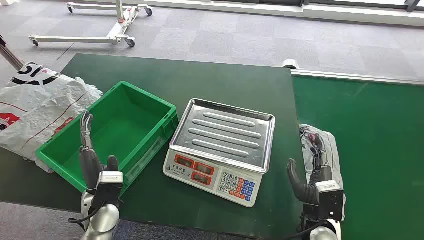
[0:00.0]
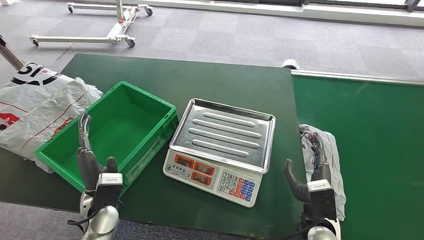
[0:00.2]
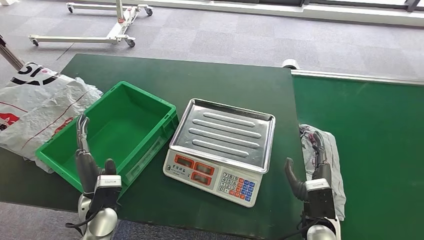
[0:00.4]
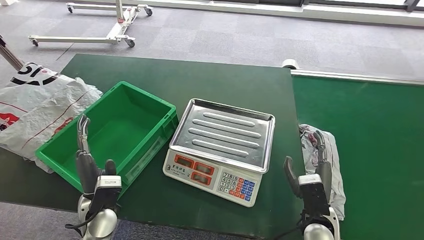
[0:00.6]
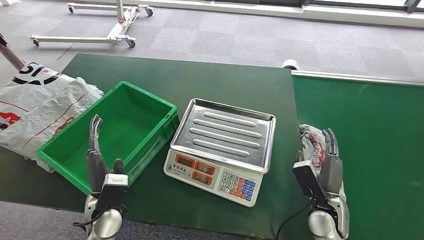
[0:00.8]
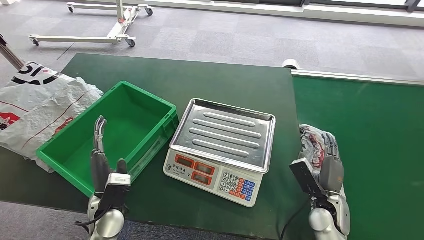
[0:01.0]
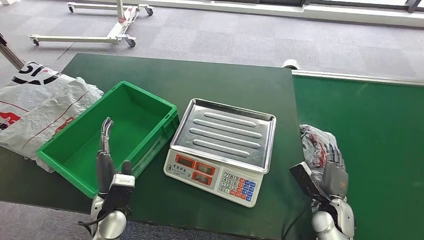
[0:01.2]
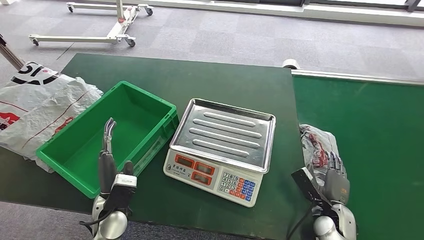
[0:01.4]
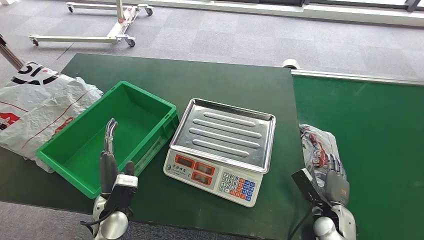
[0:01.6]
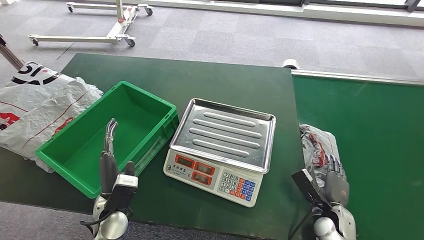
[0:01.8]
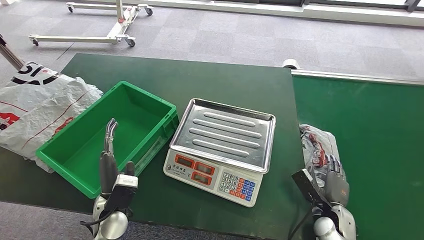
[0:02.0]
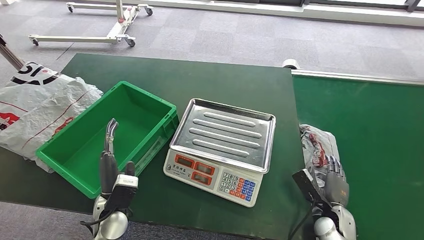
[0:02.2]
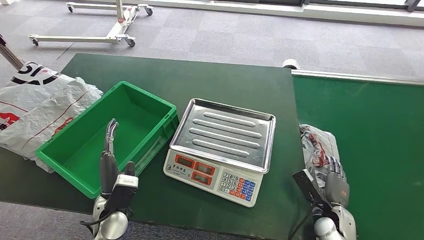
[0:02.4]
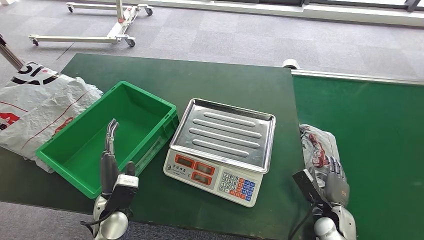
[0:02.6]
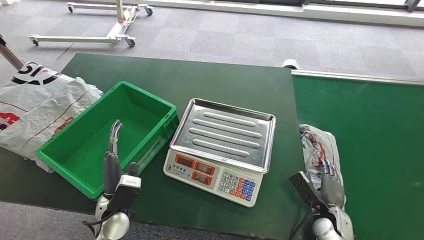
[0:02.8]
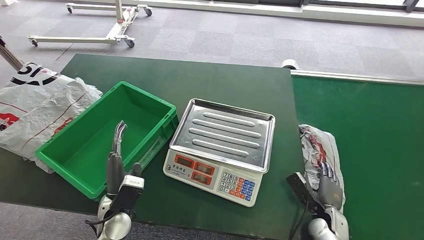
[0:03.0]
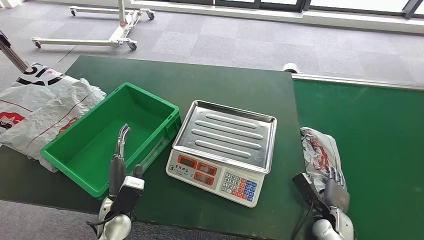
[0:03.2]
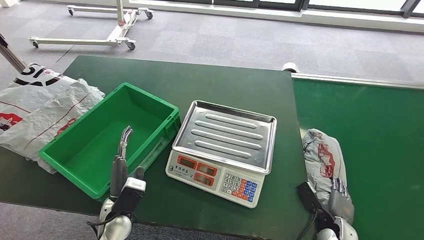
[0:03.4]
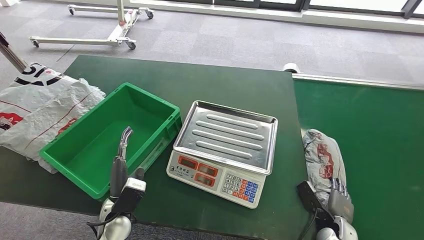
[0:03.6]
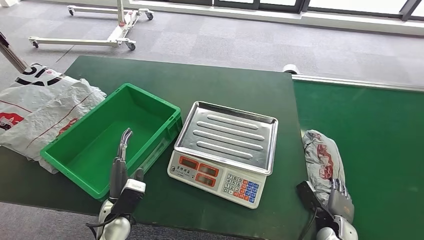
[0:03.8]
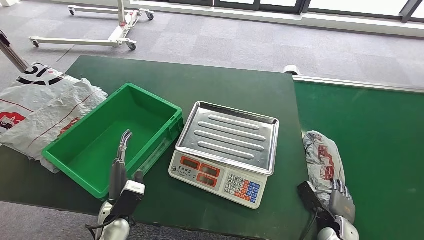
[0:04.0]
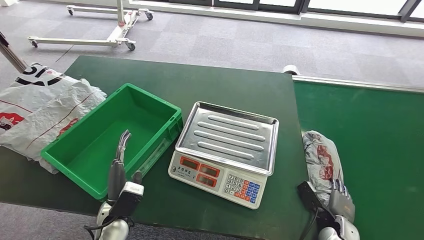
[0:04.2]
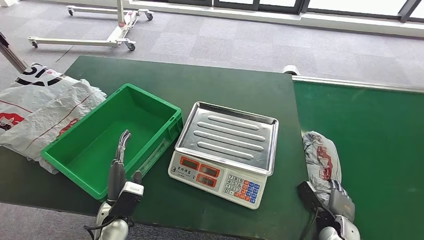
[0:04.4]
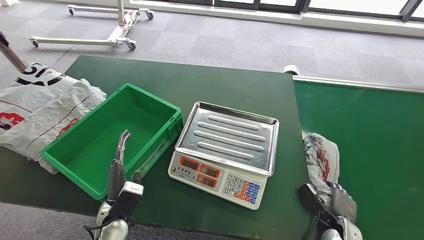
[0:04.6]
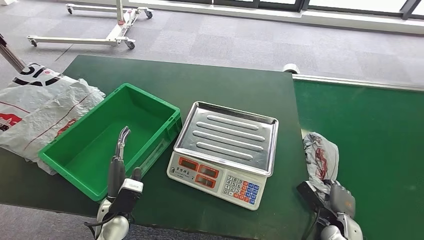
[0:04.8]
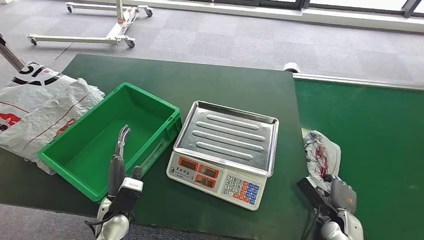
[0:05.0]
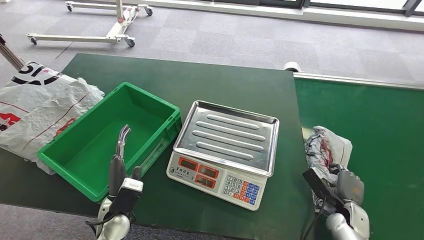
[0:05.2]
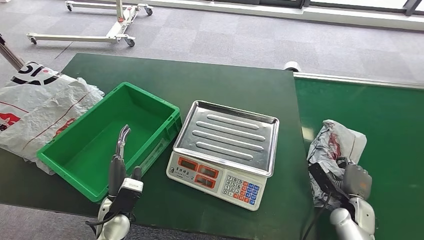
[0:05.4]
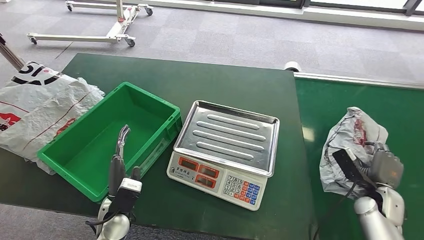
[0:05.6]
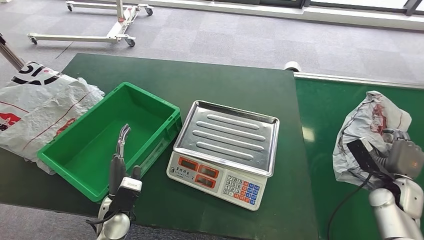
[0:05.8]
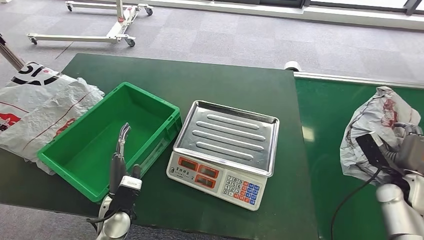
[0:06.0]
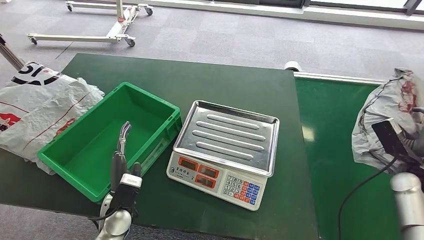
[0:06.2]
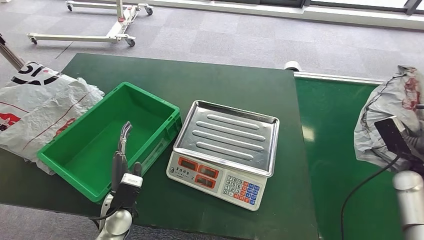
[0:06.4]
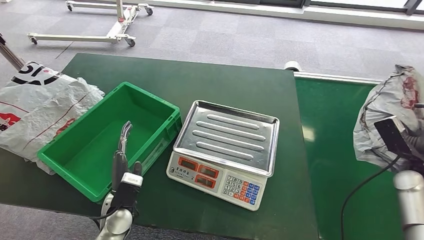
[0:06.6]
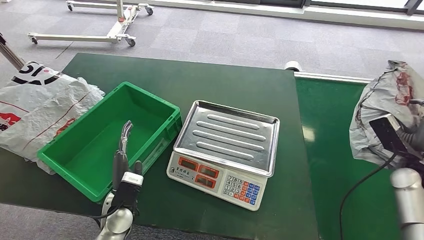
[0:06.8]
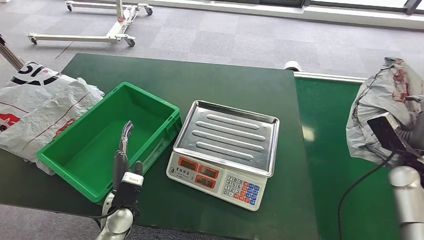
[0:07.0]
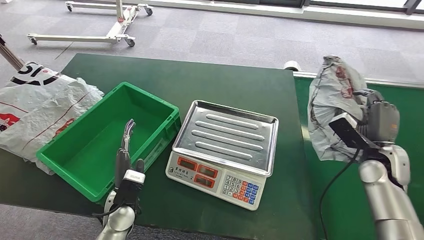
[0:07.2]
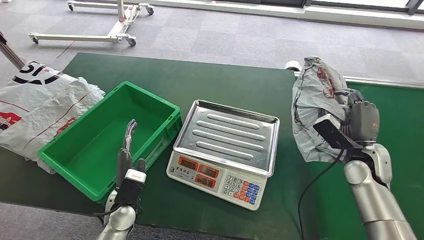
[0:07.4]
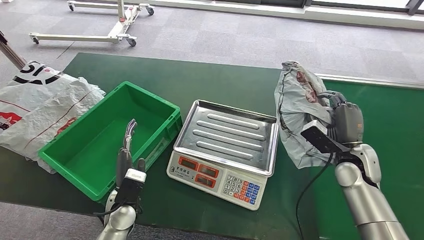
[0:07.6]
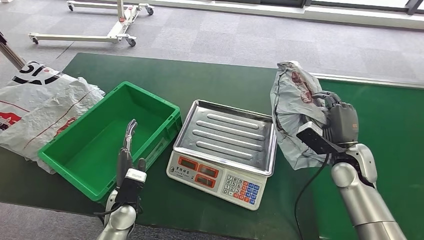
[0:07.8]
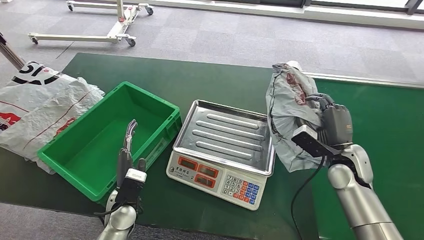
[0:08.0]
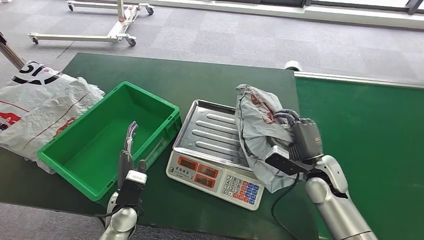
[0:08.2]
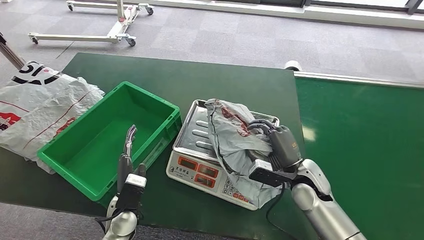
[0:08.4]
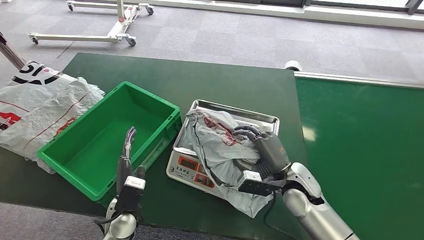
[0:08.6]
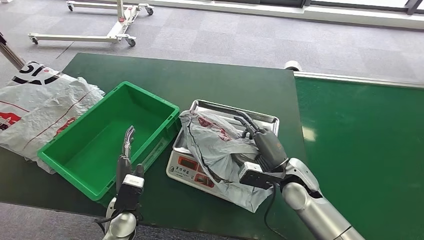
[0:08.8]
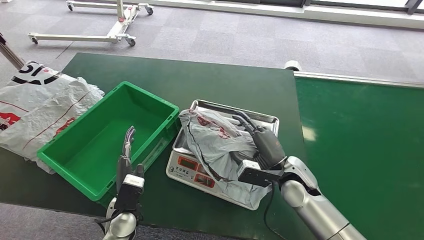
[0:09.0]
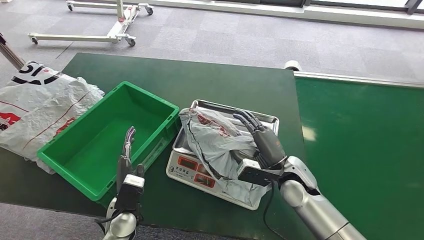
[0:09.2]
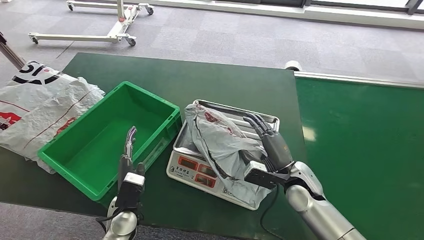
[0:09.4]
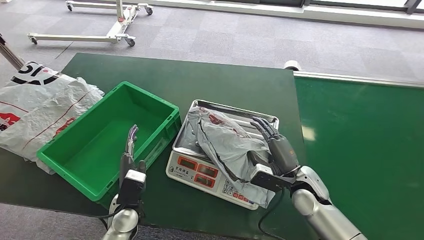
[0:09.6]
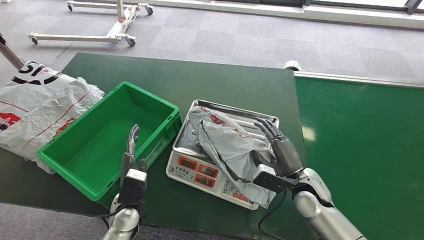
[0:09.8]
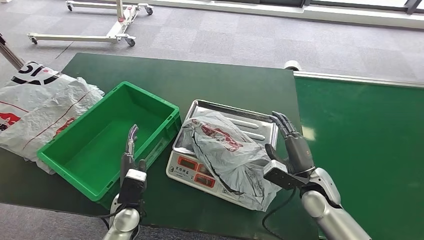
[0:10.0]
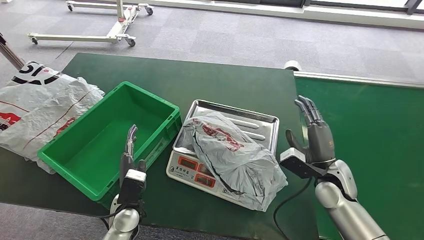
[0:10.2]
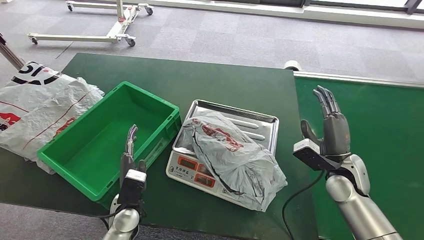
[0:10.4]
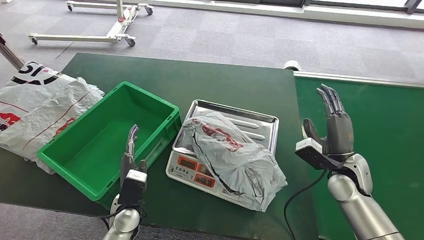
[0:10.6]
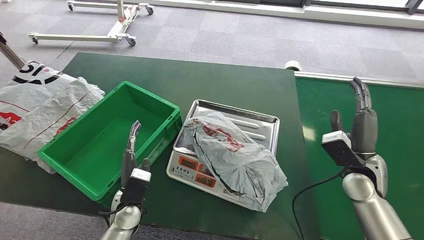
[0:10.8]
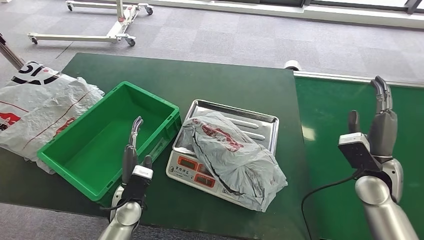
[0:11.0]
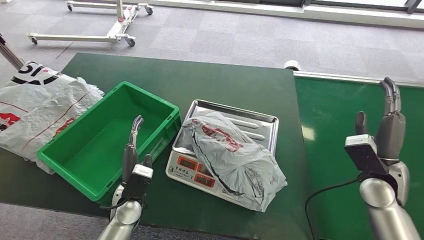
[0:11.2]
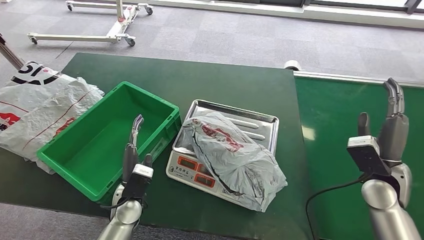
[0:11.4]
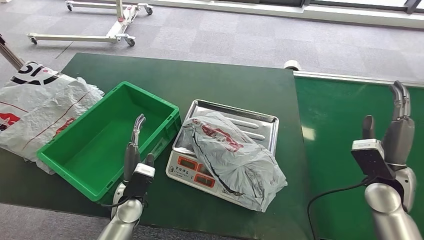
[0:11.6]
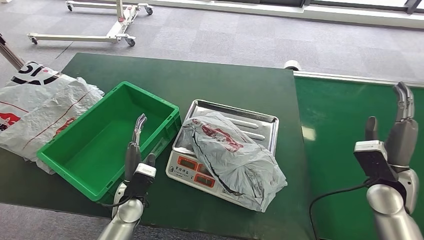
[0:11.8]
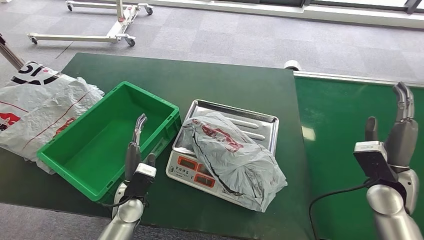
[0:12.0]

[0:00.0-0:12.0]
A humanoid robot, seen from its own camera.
Step, 0:00.0 to 0:07.6: Pick up the package from the conveyor belt.
Step, 0:07.8 to 0:10.6: Place the package onto the inbound machine.
0:01.6 to 0:03.0: The hands stay close to where they were, moving slightly.
0:09.0 to 0:10.4: The right hand travels to the right by approximately 10 cm.
0:10.4 to 0:12.0: The right hand heads to the right, covering about 5 cm.

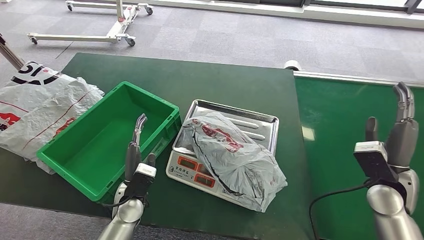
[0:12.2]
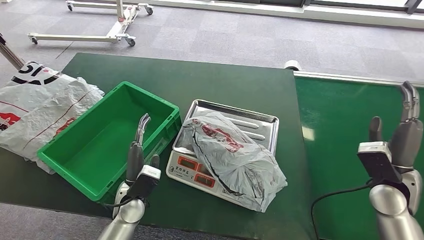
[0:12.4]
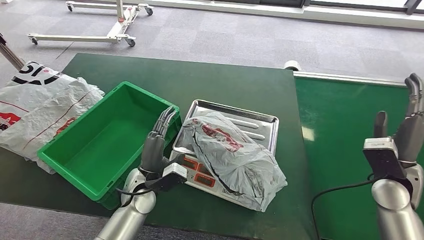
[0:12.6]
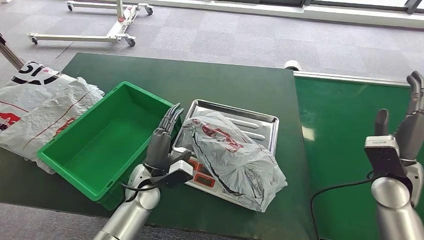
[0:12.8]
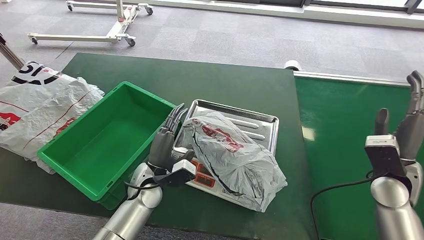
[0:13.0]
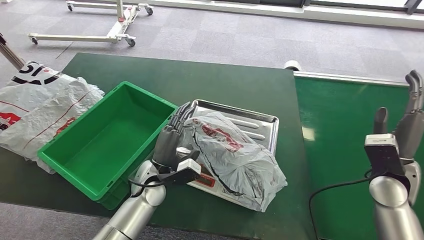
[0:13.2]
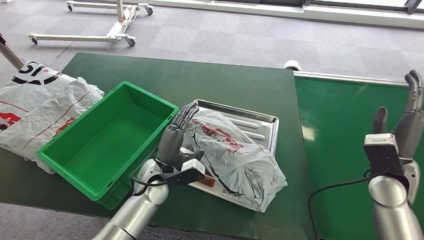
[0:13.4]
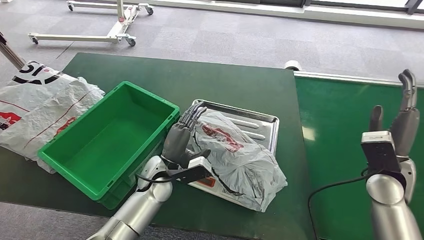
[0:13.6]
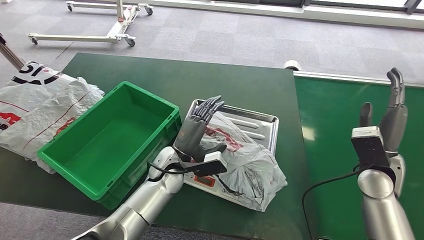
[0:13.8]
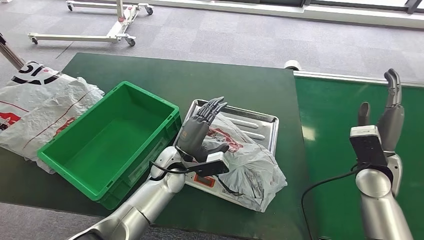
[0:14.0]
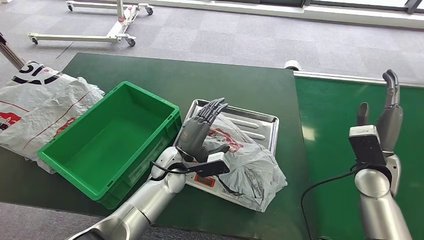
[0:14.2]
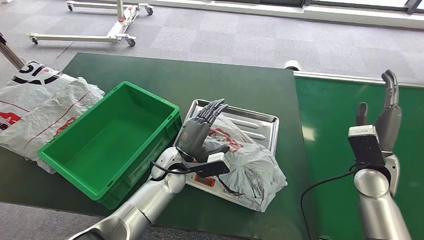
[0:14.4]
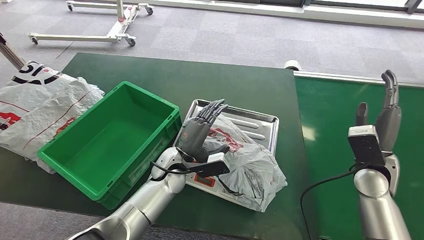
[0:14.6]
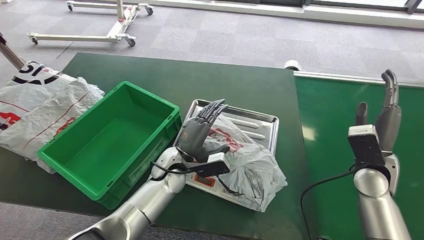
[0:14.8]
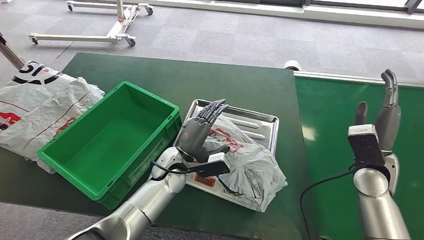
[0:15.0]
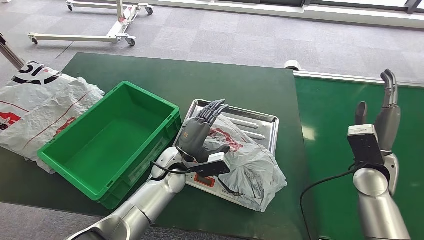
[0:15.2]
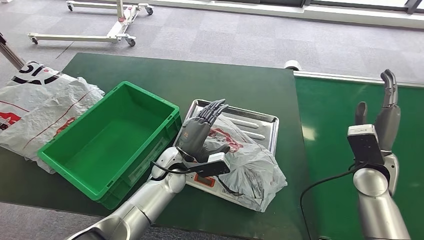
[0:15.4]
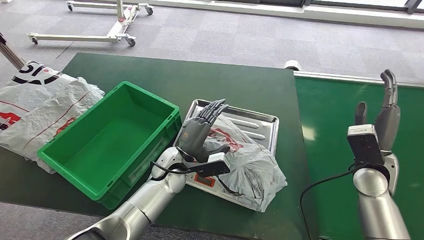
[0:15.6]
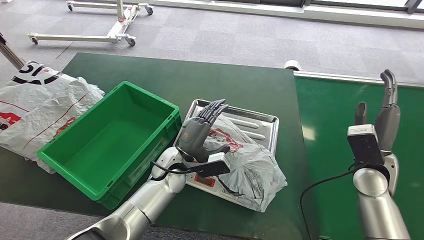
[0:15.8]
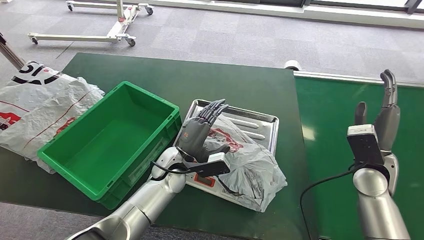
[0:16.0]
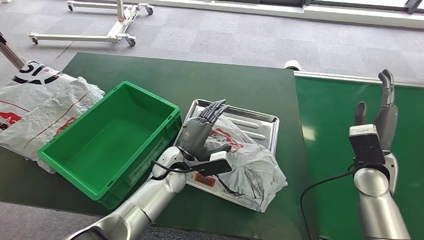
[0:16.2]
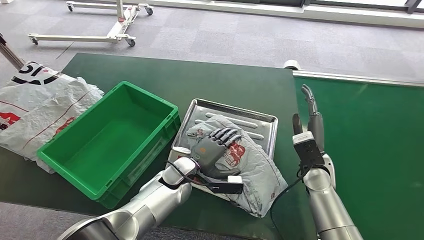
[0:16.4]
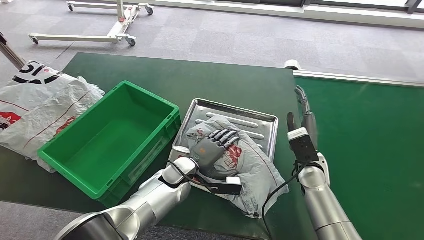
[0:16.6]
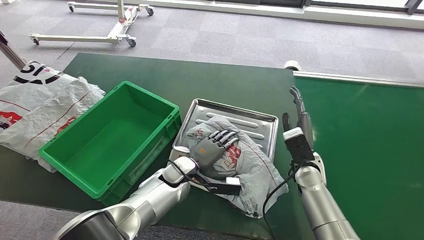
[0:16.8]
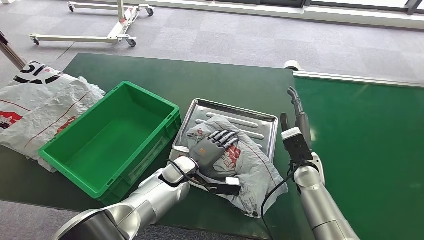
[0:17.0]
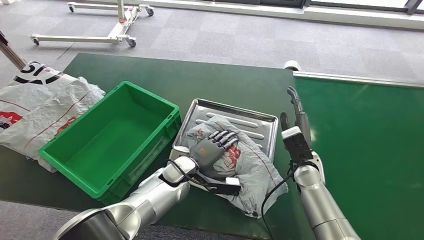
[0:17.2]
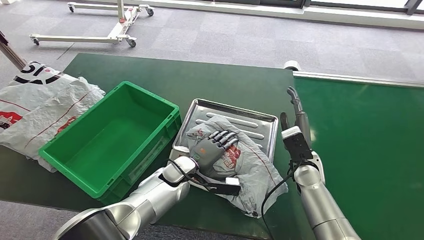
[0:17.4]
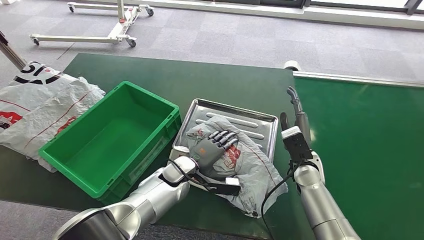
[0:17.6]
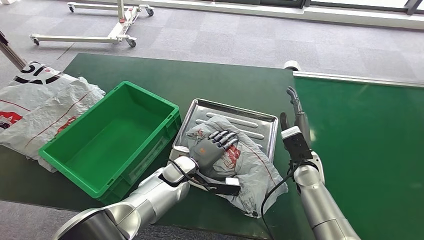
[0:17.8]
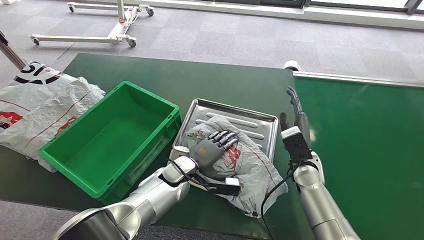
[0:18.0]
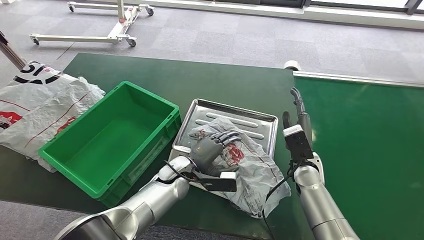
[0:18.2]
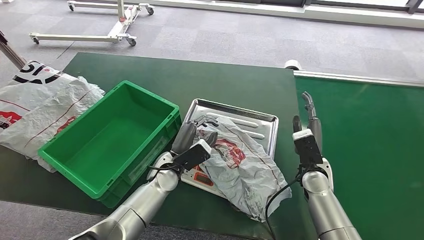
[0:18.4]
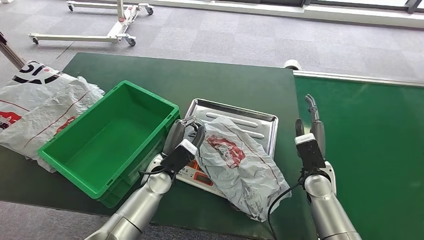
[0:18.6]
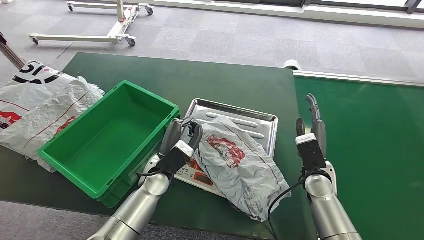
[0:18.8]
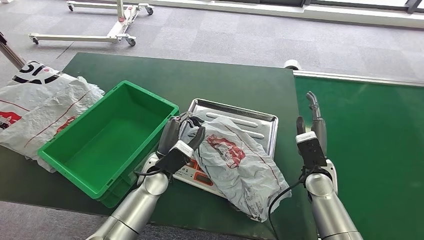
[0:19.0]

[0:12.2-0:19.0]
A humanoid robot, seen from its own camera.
0:12.2 to 0:13.6: The left hand moves to the right and forward, some 10 cm.
0:13.6 to 0:16.2: The hands make only small movements.
0:17.6 to 0:19.0: The left hand shifts by roughly 5 cm.
